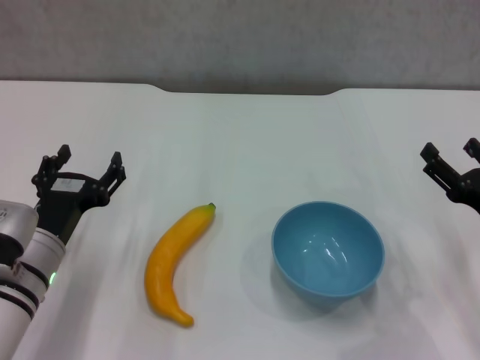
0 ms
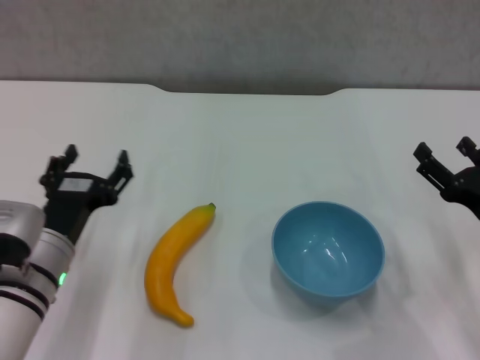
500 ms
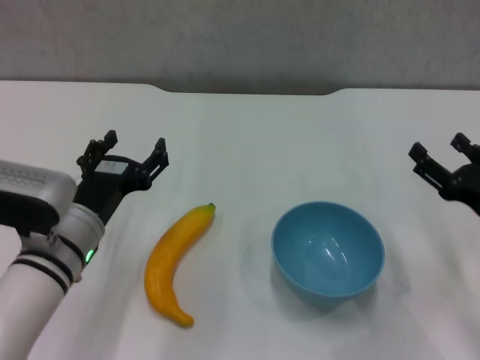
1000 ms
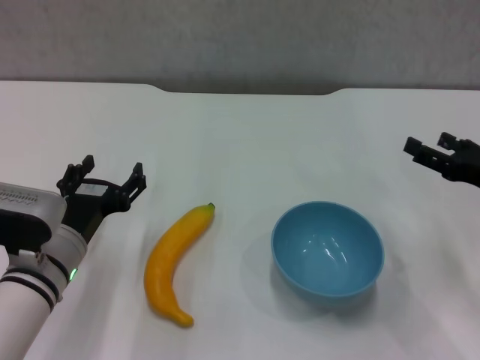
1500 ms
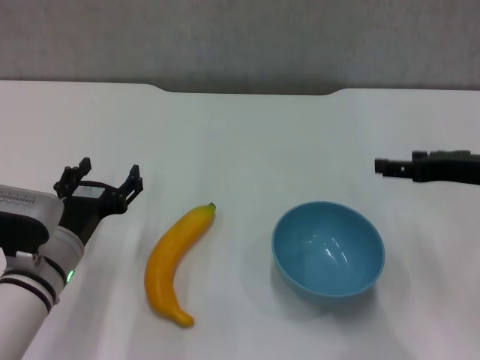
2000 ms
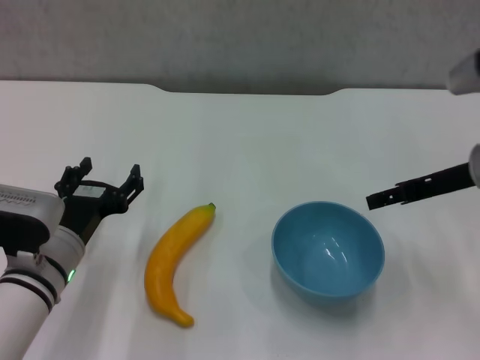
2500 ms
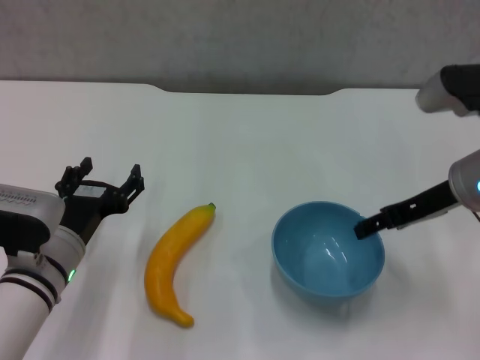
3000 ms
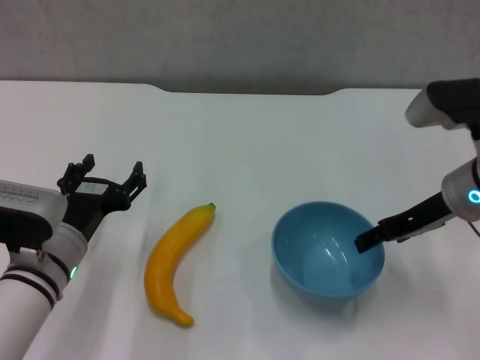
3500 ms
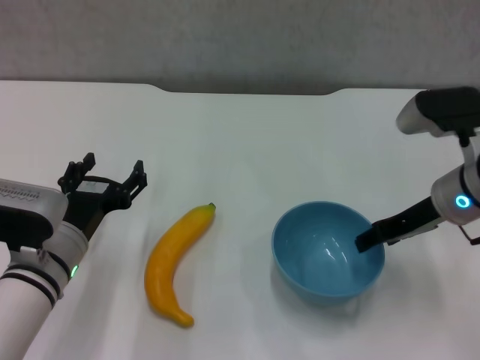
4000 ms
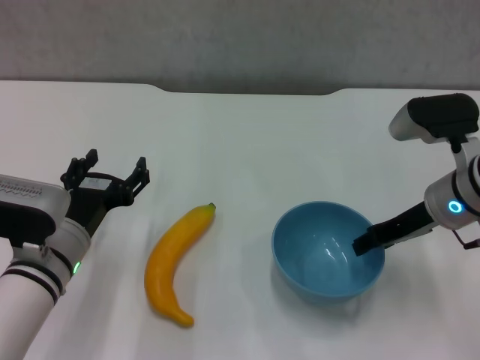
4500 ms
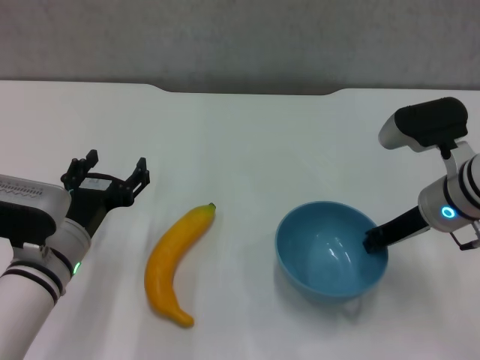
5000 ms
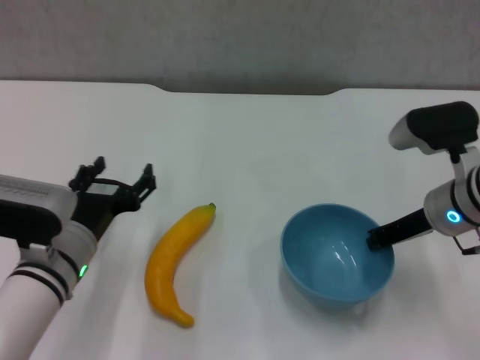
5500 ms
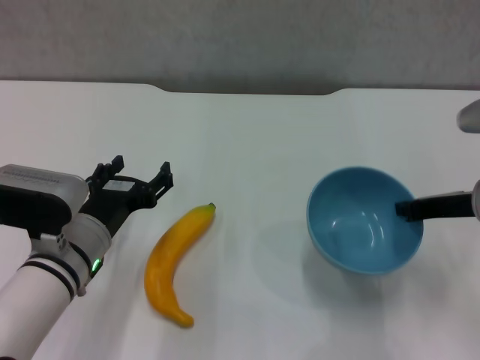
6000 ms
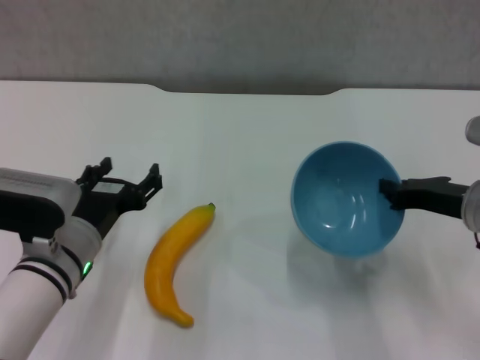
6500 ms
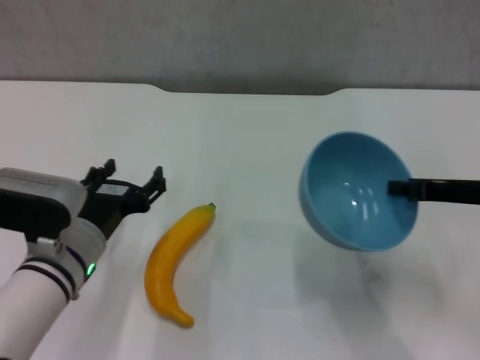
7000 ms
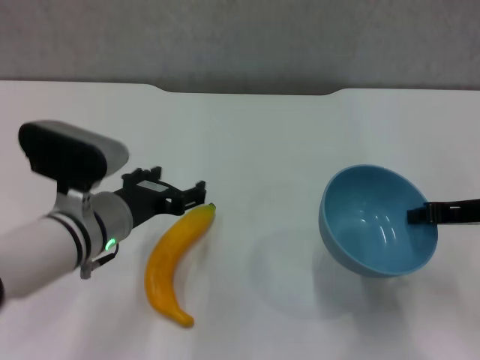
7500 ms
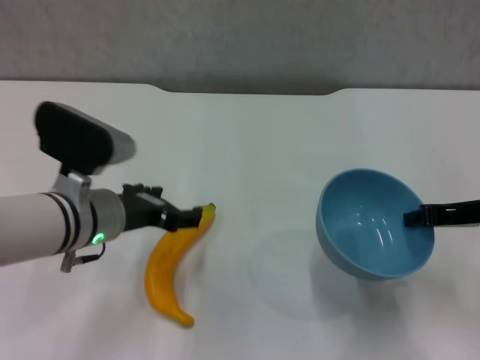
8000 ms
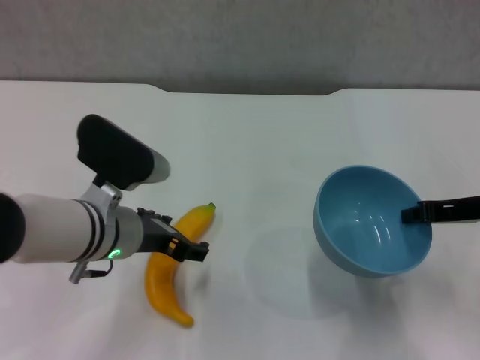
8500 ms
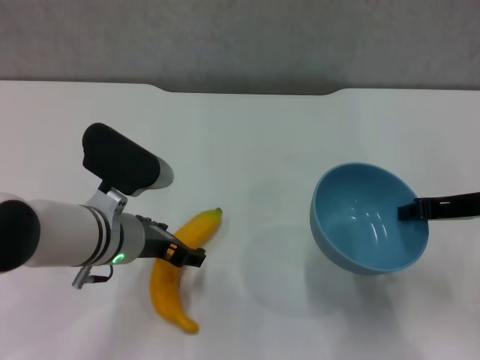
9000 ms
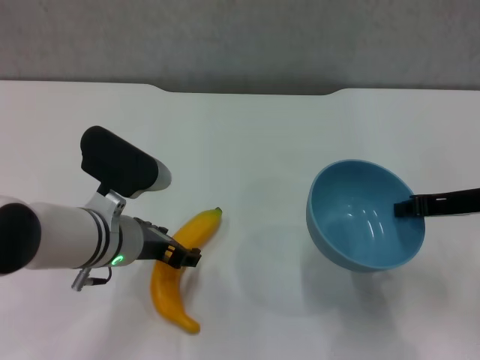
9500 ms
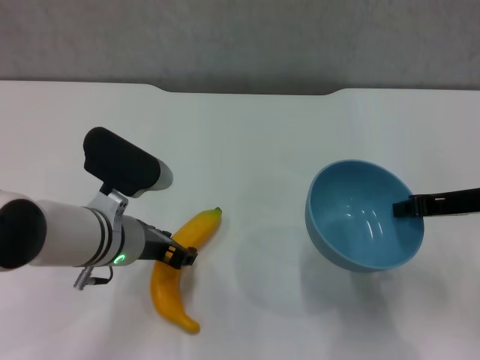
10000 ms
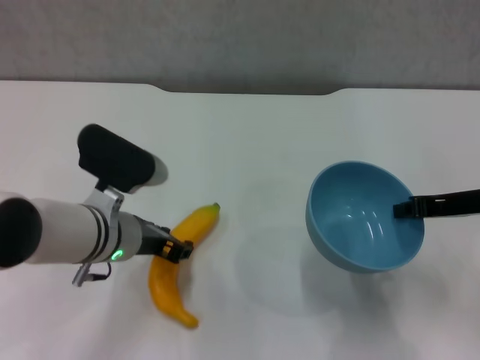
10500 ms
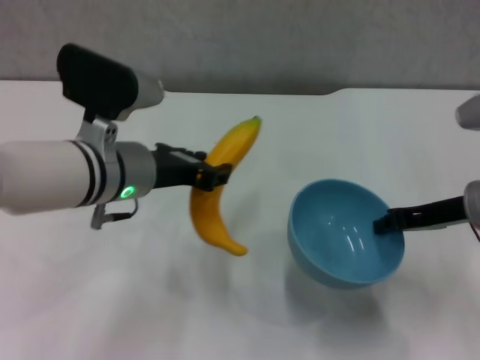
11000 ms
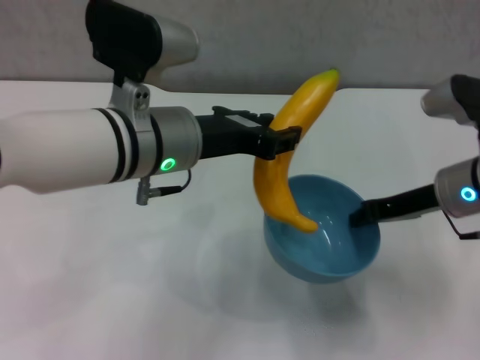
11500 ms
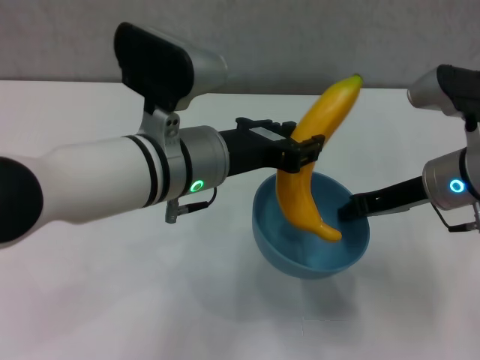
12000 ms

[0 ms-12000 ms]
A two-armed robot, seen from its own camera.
Step, 0 ms to 5000 ms: Grasp the blue bowl with right gripper.
Step, 5500 ms to 6500 ms: Lift the blue bowl with right gripper.
Step, 7500 ms to 10000 ms: Grasp the banana with left gripper.
0 ms to 2000 ms: The right gripper moves upward and forward, approximately 10 cm.
2000 ms to 4000 ms: The right gripper heads to the left, covering about 5 cm.
4000 ms to 6000 ms: The right gripper closes its fingers.
6000 ms to 8000 ms: The left gripper heads upward, covering about 5 cm.
8000 ms to 10000 ms: The left gripper closes up.
10000 ms to 12000 ms: The left gripper goes approximately 15 cm upward and to the right, and closes its fingers, while the right gripper heads to the left, covering about 5 cm.

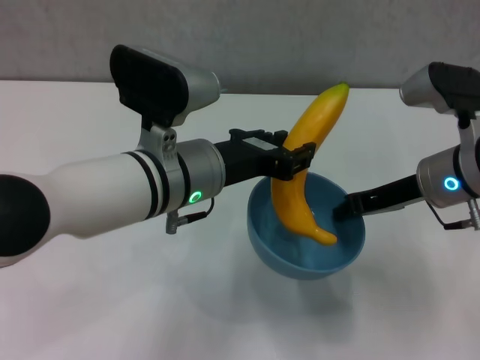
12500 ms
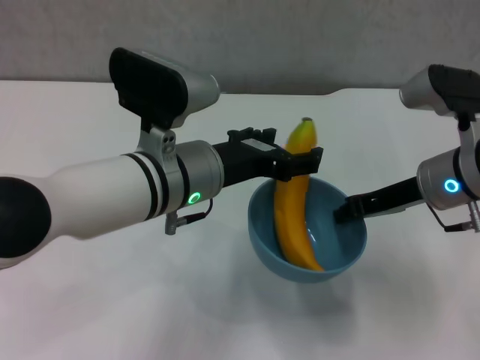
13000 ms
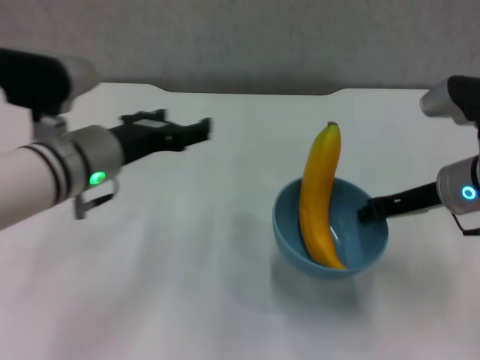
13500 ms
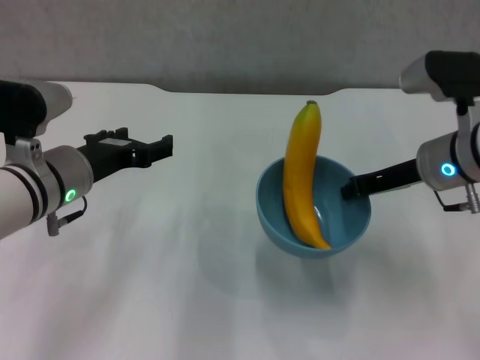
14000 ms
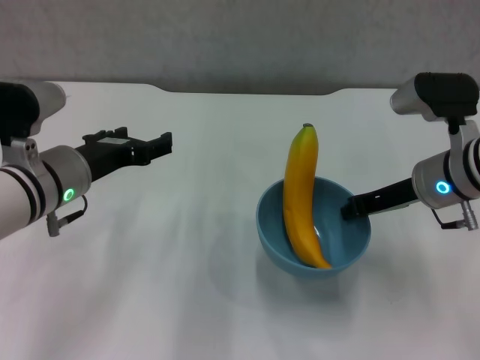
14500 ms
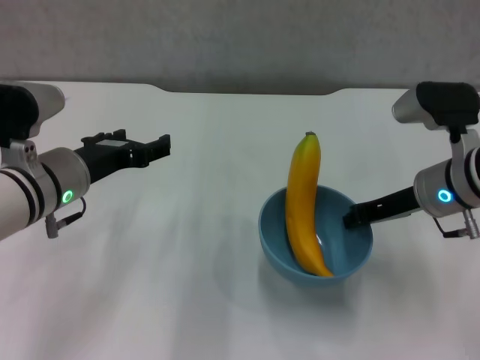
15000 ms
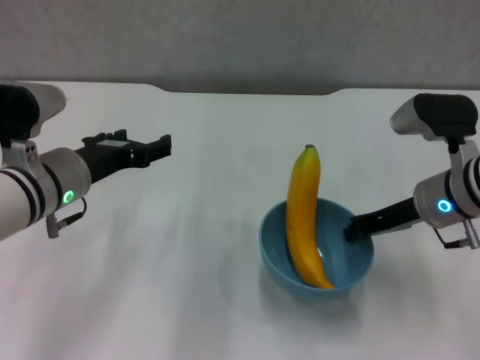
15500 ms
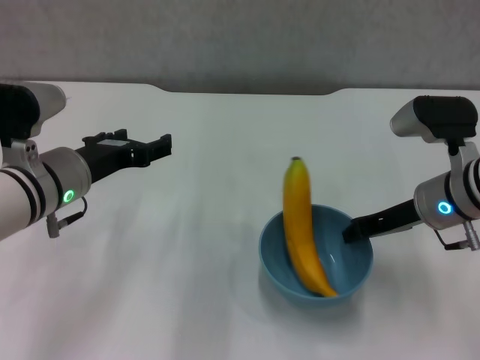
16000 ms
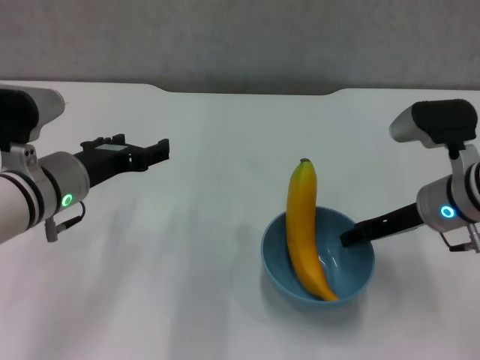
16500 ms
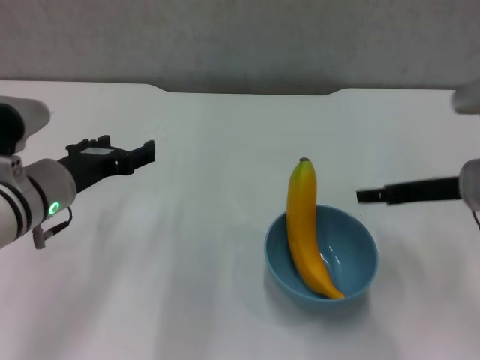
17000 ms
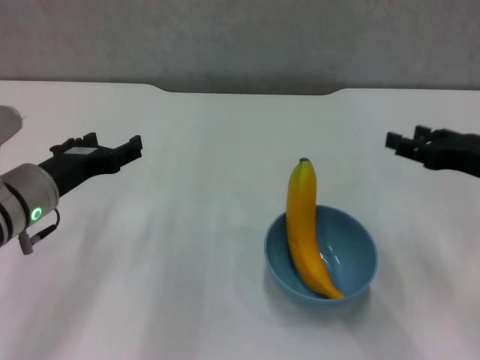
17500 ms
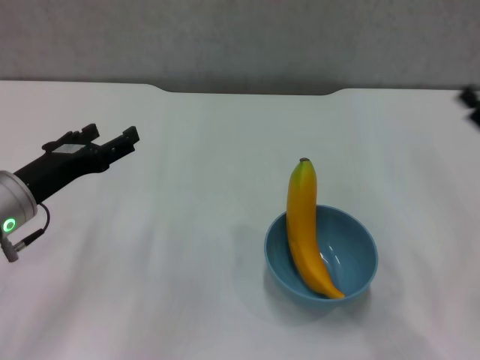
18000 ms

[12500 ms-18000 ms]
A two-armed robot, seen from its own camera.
Step, 13500 ms to 16500 ms: Place the bowl on the table with right gripper.
12500 ms to 14500 ms: The left gripper shifts about 10 cm to the left, and opens up.
14500 ms to 16000 ms: The grippers make only small movements.
16000 ms to 18000 ms: The right gripper goes some 15 cm to the right and backward, and opens; the left gripper shifts some 5 cm to the left.
